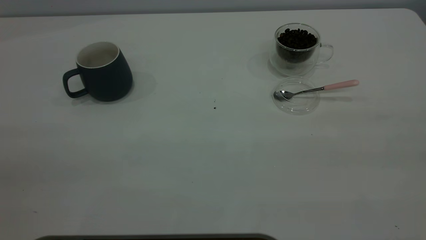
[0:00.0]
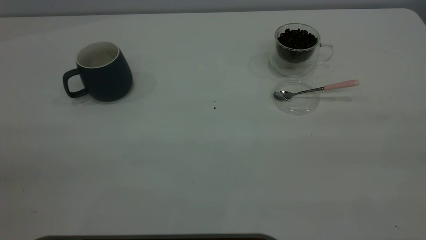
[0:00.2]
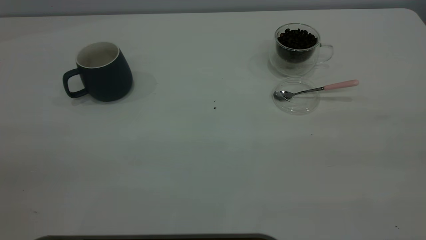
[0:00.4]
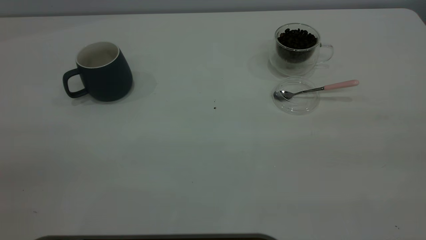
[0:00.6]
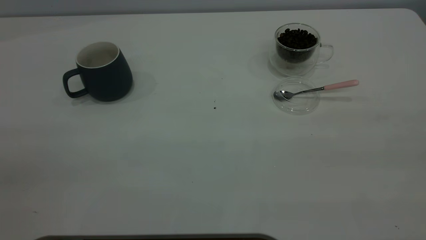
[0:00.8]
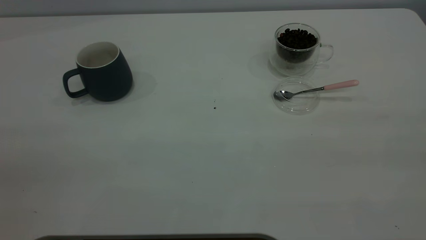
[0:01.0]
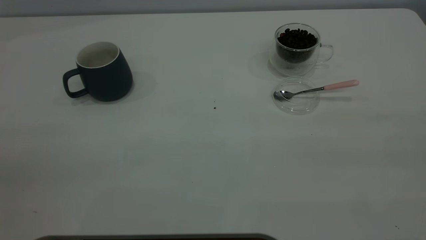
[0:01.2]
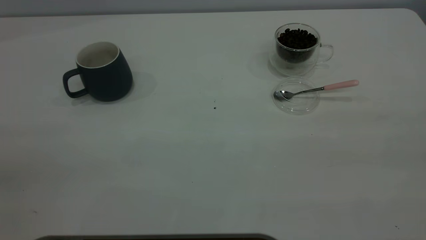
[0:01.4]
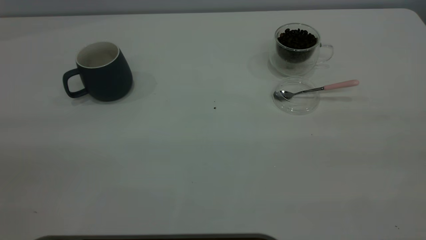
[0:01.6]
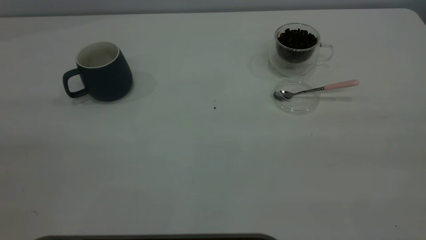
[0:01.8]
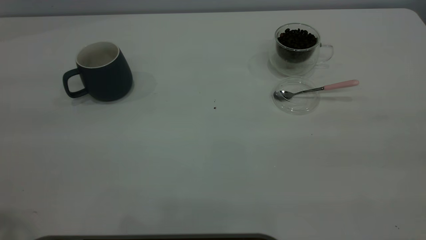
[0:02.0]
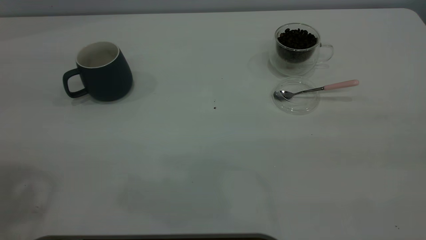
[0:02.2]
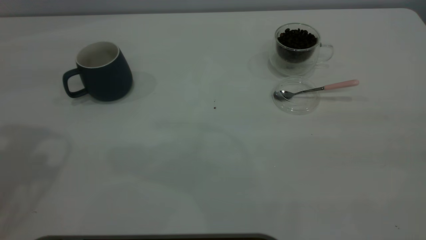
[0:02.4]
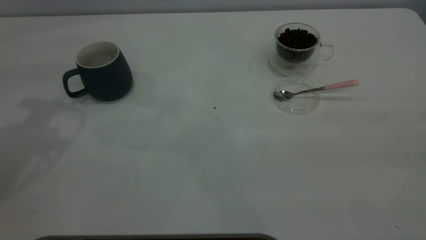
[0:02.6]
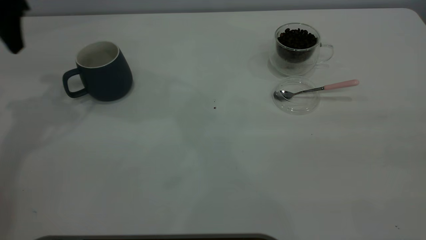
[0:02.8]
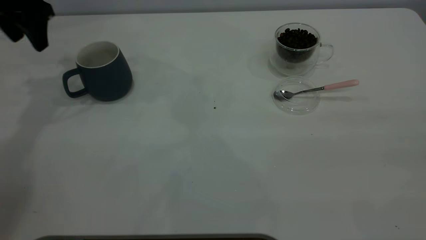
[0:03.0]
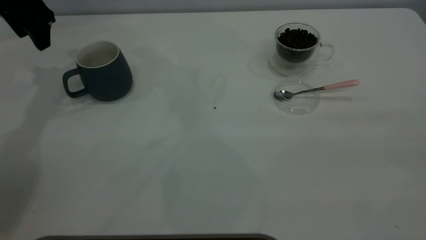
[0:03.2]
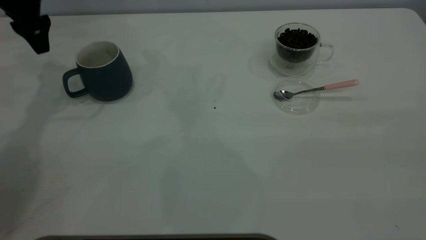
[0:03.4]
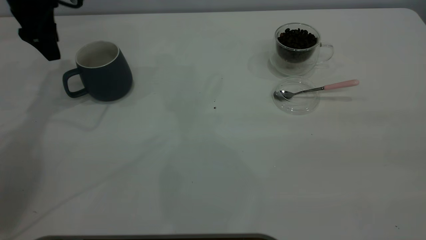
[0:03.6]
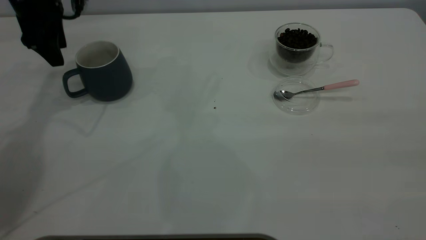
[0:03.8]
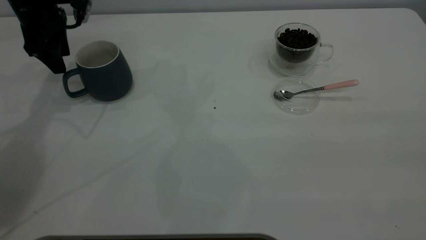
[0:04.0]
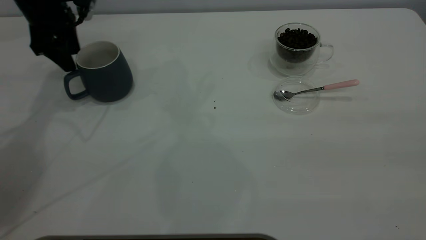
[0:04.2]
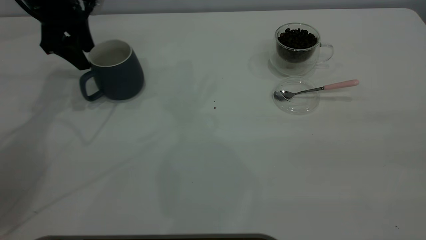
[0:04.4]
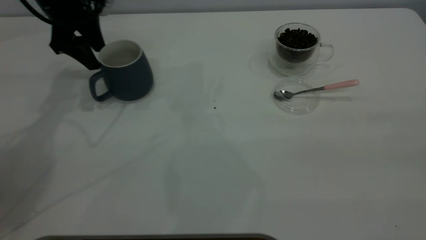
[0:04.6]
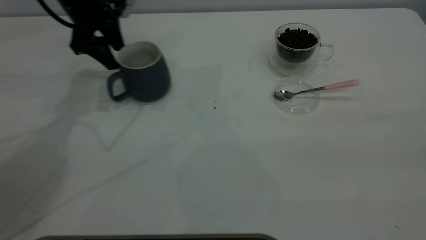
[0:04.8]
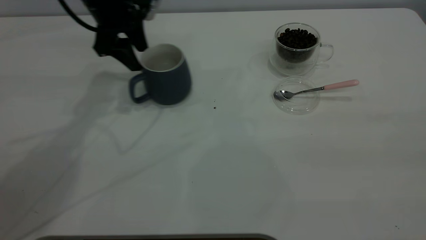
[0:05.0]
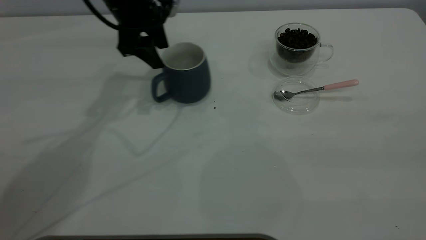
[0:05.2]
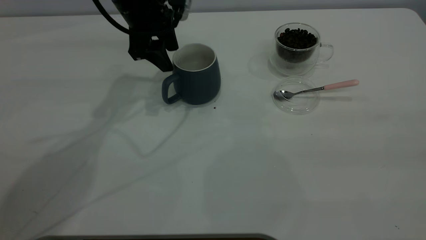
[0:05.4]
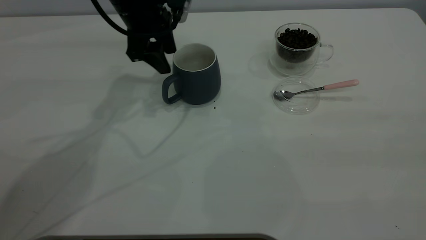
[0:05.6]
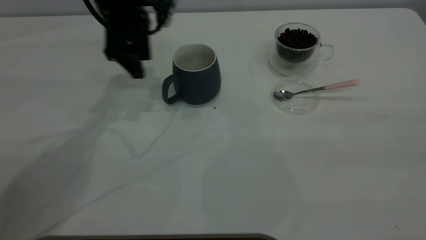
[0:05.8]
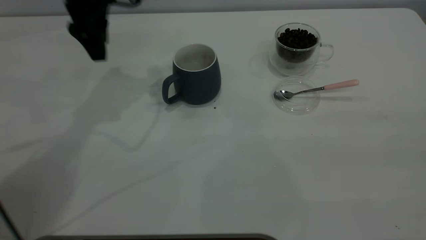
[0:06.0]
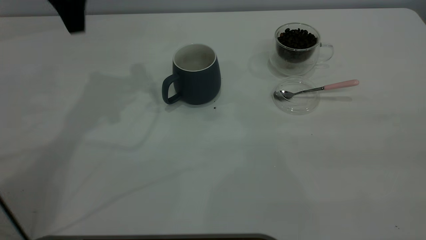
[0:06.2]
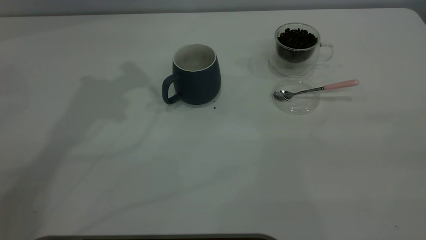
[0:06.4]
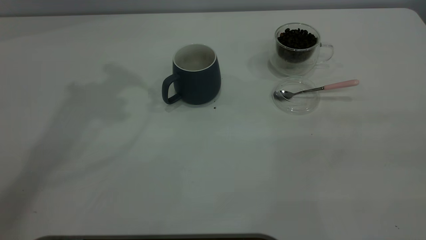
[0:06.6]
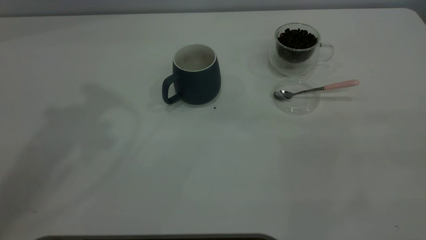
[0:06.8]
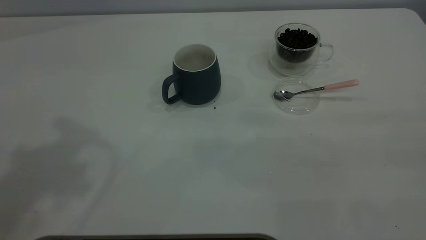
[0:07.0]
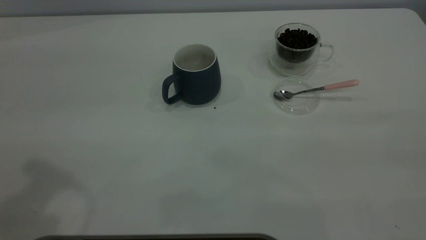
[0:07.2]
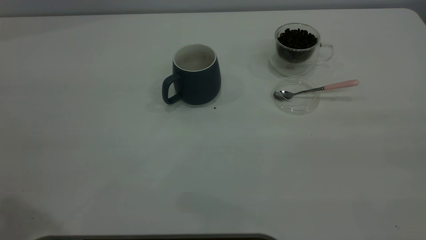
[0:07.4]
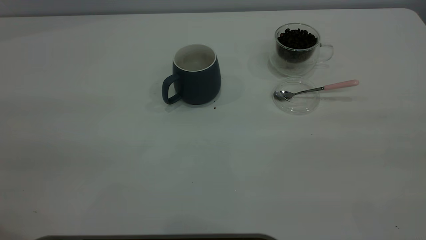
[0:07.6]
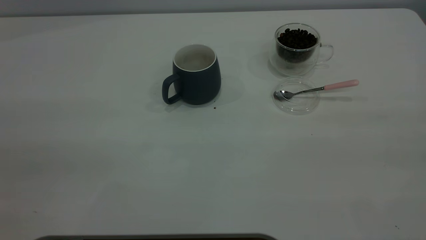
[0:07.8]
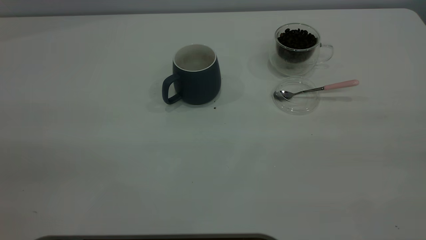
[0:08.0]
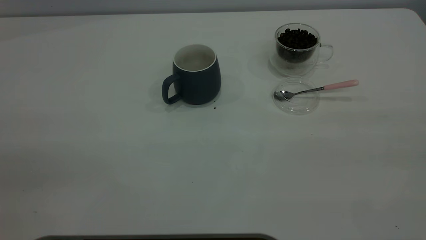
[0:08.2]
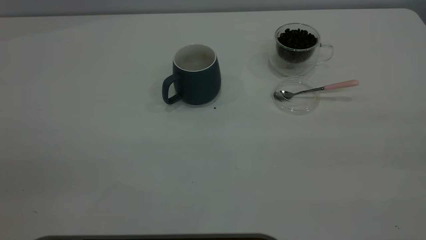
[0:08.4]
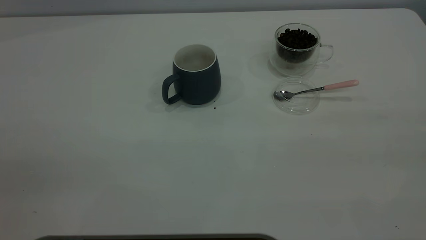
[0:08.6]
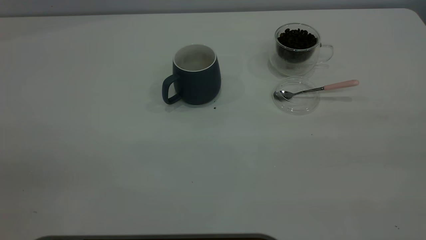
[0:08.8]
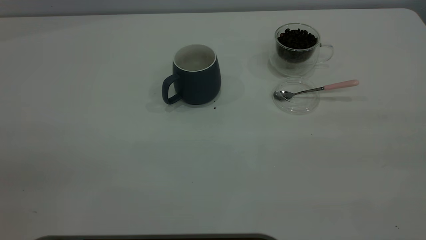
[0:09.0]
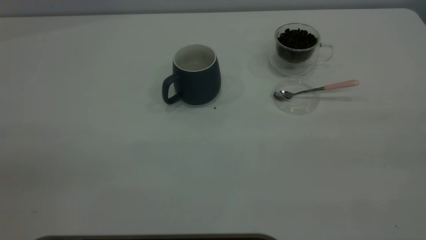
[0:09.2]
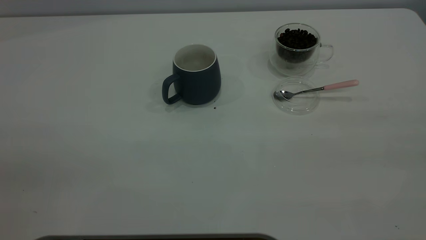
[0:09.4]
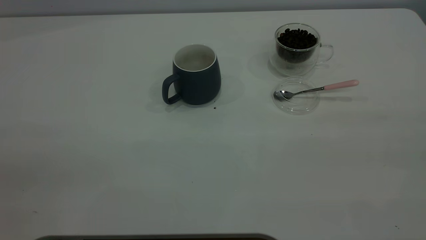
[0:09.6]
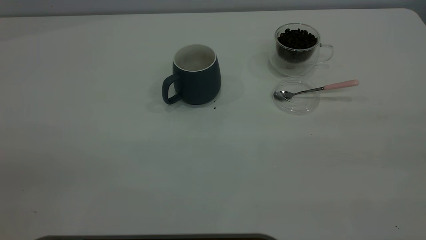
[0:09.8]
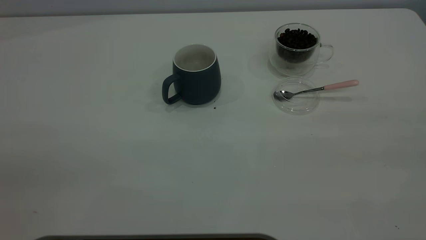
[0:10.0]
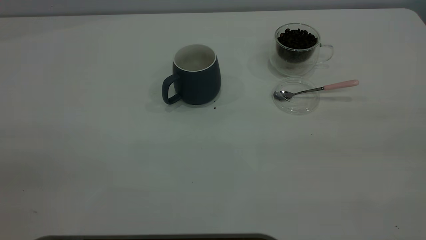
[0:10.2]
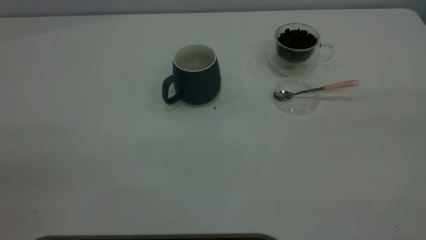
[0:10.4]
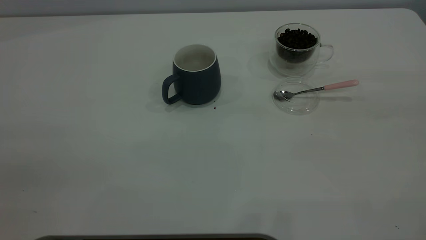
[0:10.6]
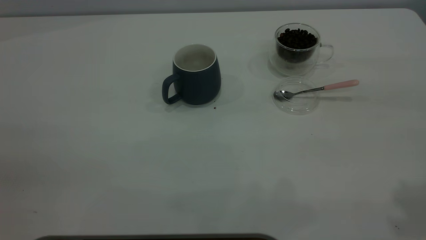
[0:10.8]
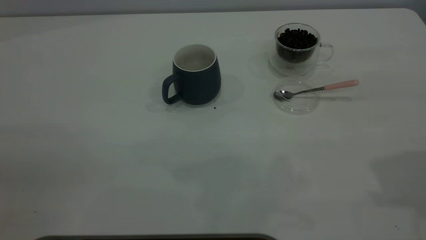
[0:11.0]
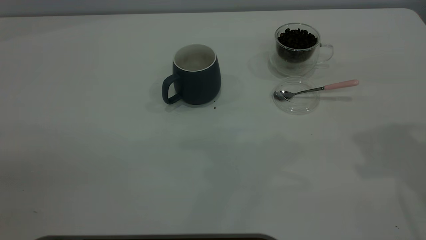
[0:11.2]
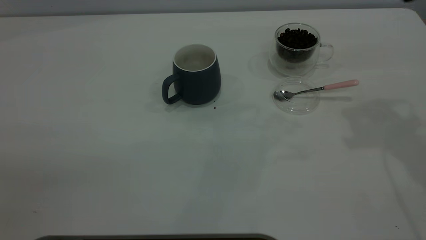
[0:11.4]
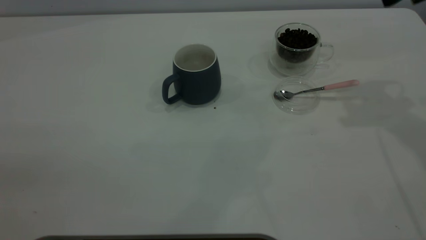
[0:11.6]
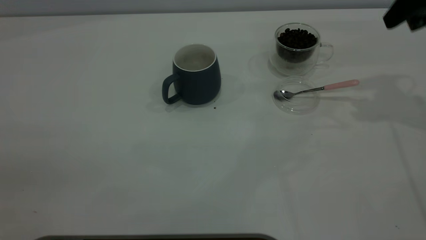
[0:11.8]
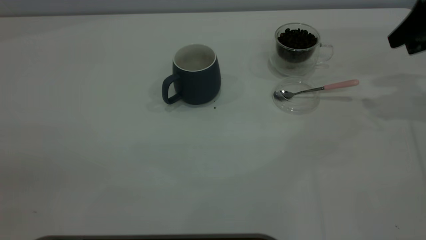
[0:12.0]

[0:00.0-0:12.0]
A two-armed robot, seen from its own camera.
Task of the whole recording: the left gripper place the grey cup in the center of the table, the right gripper take the pink spoon from the cup lid and scoop out the coffee beans from the coffee cup and put them into the grey cup, the right gripper put the spoon back into the cup lid.
Step, 0:00.0 to 0:05.6: Move the cup to the center of view.
0:01.6 to 0:03.0: The left gripper is displaced forward by some 40 cm.
0:03.0 to 0:04.4: The left gripper moves some 5 cm.
0:04.4 to 0:06.0: The left gripper travels to the right and upward by about 10 cm.
0:06.0 to 0:07.6: The left gripper travels backward by some 35 cm.
0:10.4 to 0:12.0: The right gripper shifts about 40 cm forward and downward.

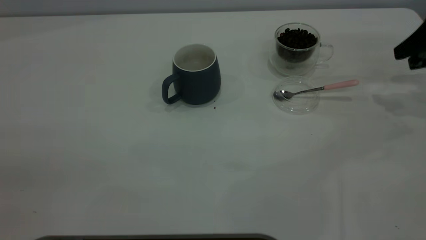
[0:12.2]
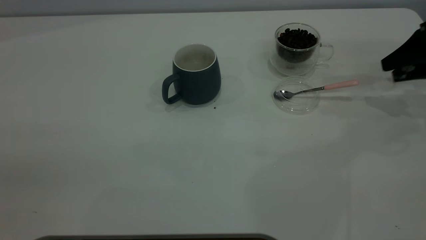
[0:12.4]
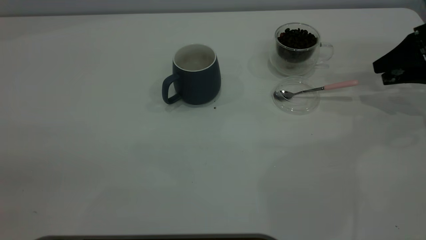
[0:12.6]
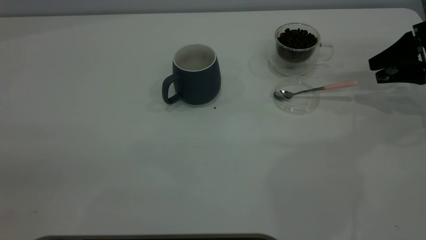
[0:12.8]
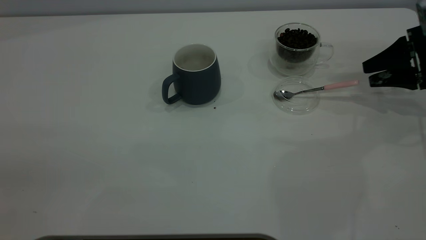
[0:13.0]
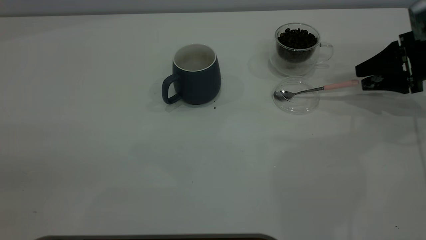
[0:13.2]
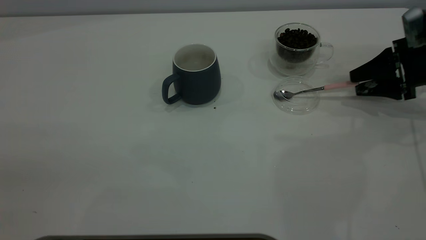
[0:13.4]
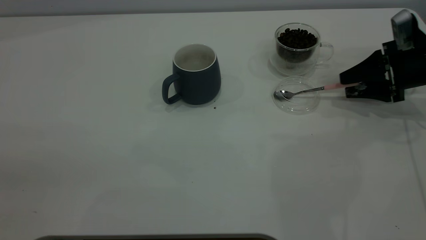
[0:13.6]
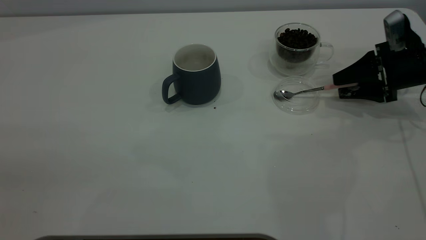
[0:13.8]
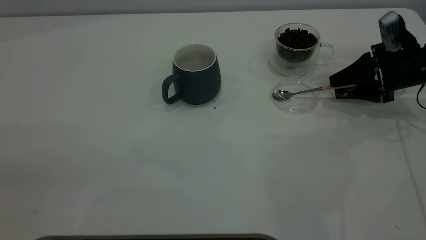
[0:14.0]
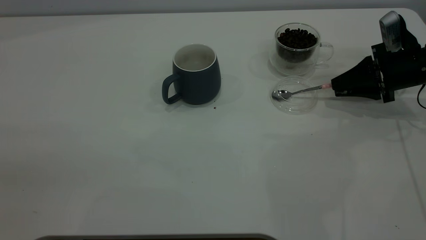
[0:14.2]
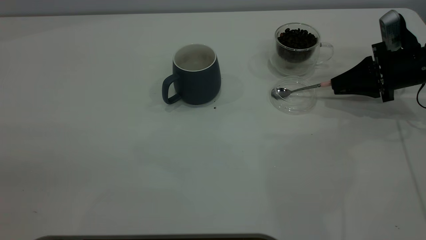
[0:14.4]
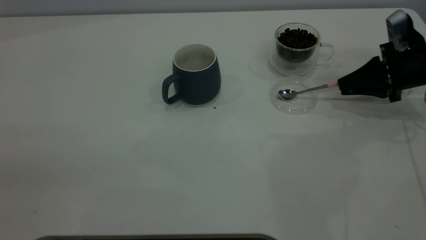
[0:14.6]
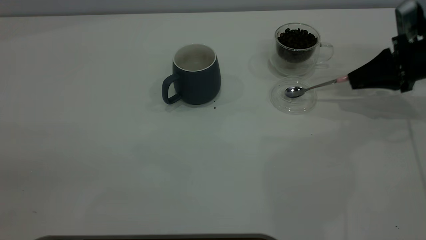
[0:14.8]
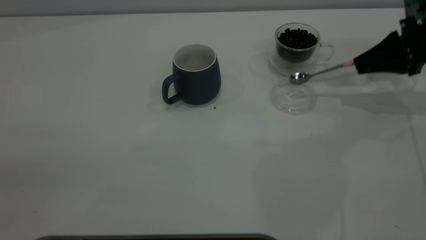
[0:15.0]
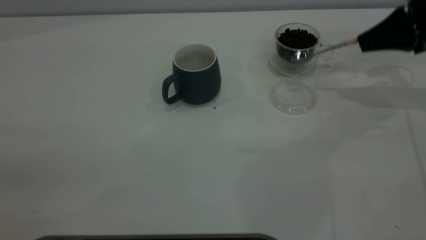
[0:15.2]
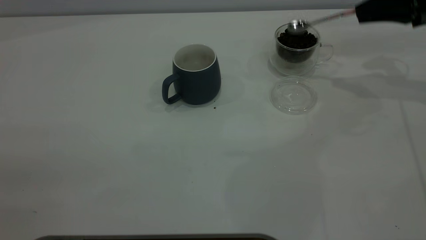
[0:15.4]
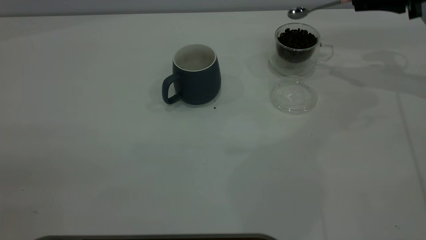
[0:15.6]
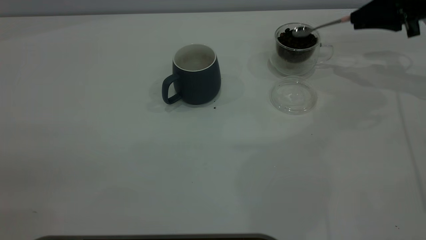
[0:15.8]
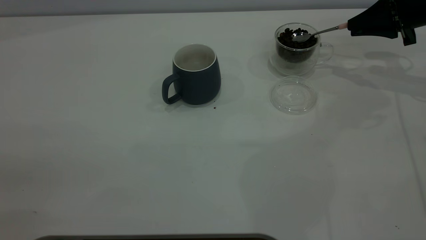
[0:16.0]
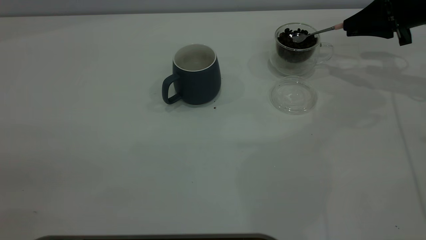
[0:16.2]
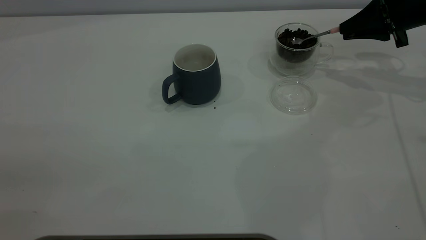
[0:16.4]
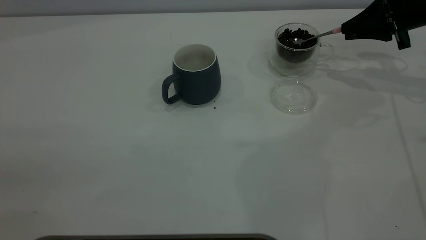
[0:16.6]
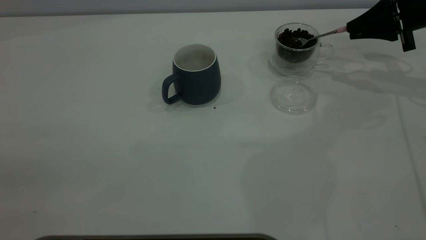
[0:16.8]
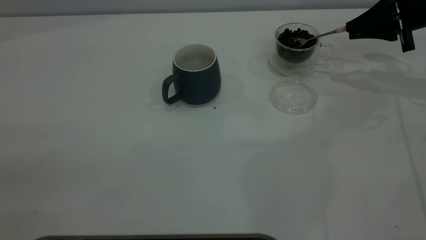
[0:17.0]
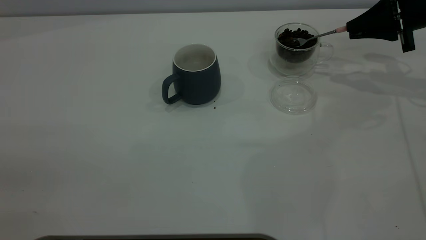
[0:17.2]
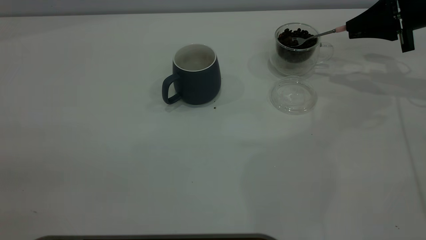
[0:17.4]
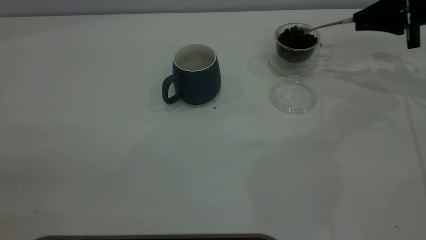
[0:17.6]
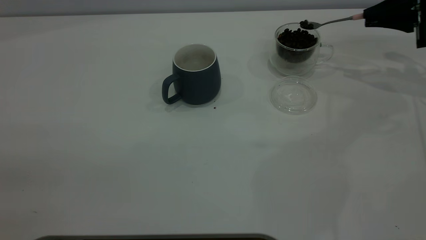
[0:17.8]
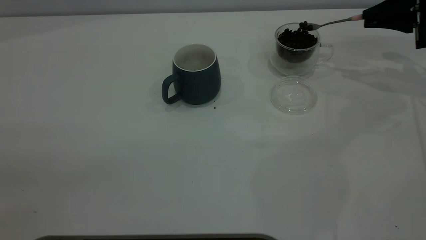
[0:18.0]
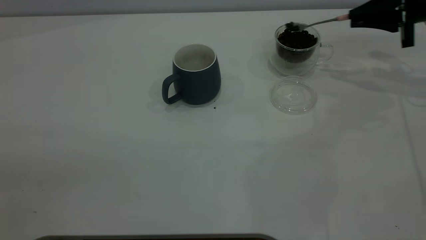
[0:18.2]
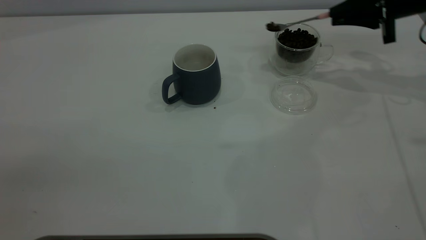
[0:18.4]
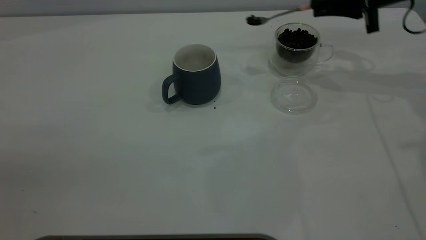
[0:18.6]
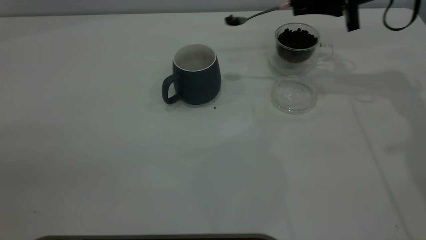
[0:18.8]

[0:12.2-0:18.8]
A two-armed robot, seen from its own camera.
Task of the whole recording: the left gripper place the grey cup in the center of the table, the right gripper take the pink spoon from the cup lid and scoop out the coffee beans from the coffee cup and put them into the grey cup, the right gripper put the spoon back into the cup lid.
Step, 0:12.2 to 0:14.8: Pick up the spoon.
0:12.2 to 0:13.8: The right gripper heads downward and to the left, covering roughly 10 cm.
0:13.8 to 0:15.4: The right gripper shifts roughly 15 cm upward, and closes up.
0:17.2 to 0:18.8: The right gripper travels to the left by some 10 cm.
